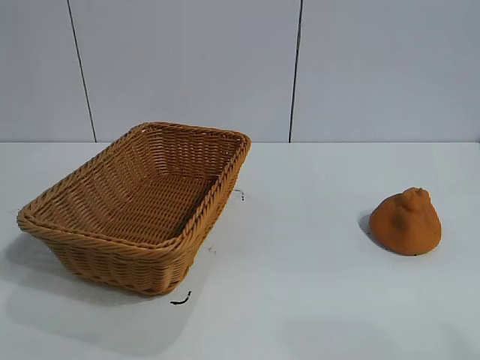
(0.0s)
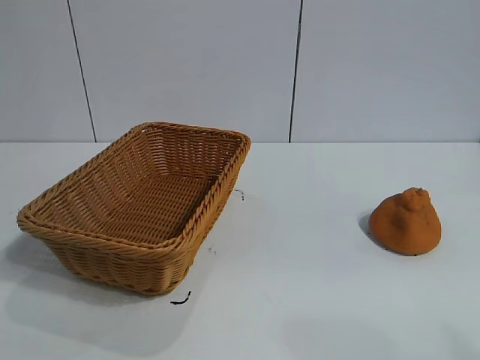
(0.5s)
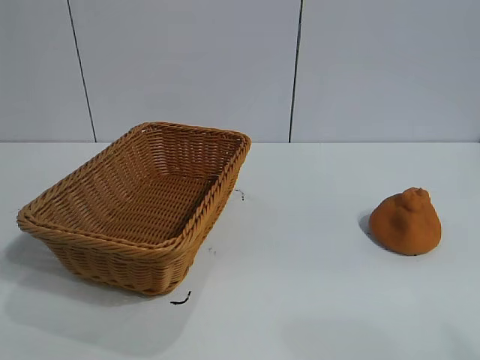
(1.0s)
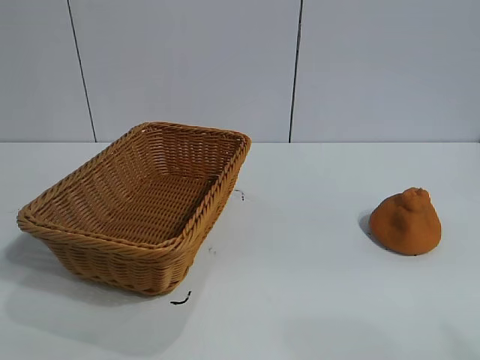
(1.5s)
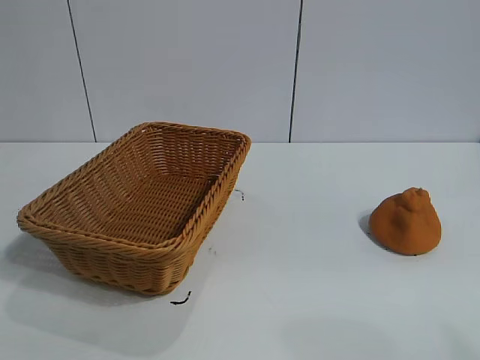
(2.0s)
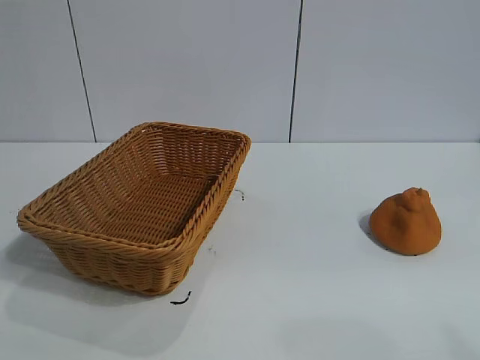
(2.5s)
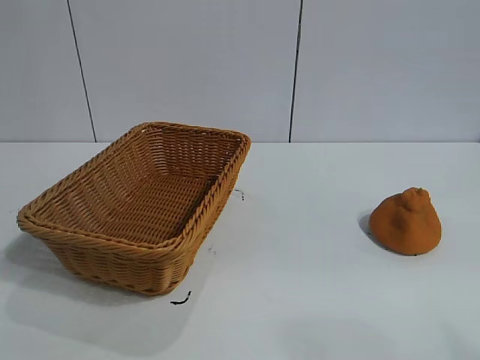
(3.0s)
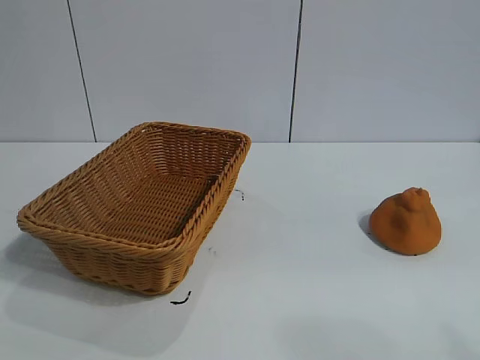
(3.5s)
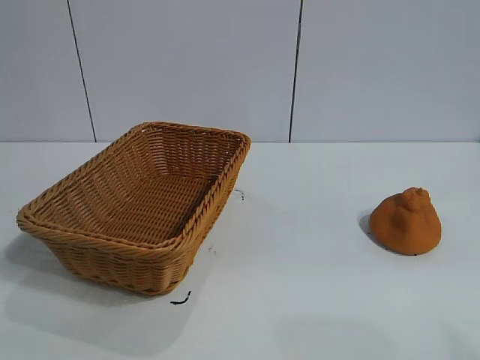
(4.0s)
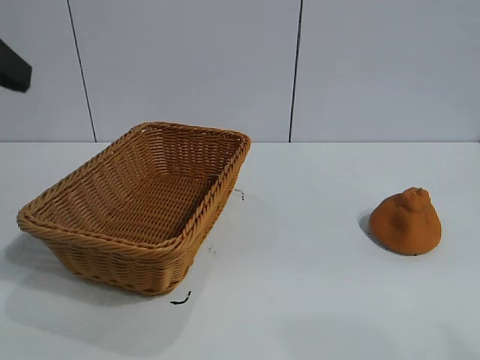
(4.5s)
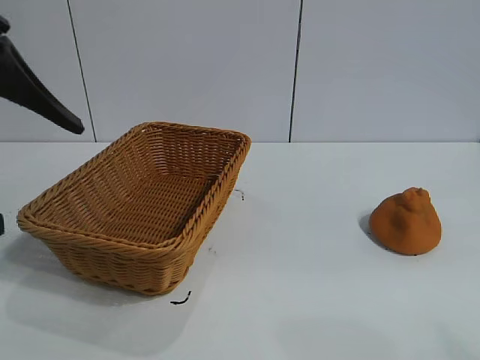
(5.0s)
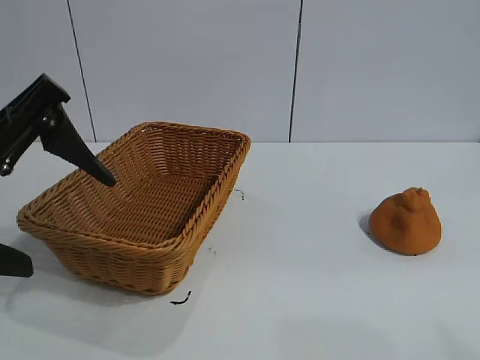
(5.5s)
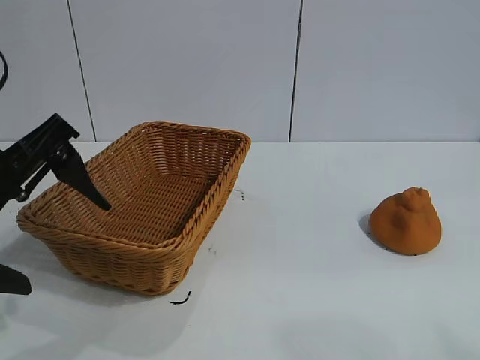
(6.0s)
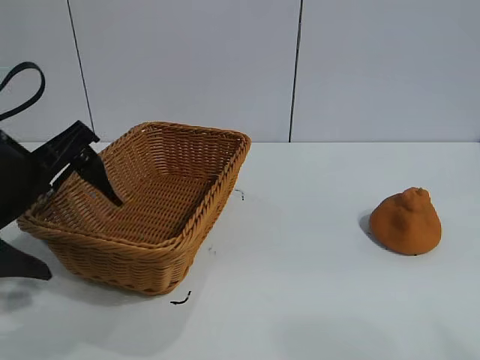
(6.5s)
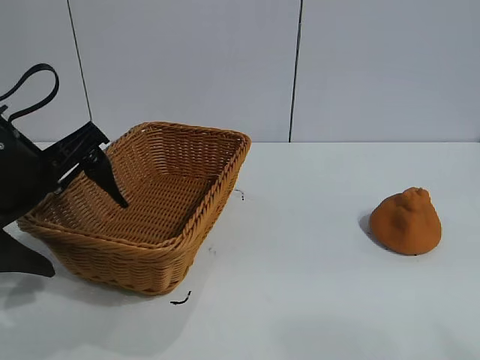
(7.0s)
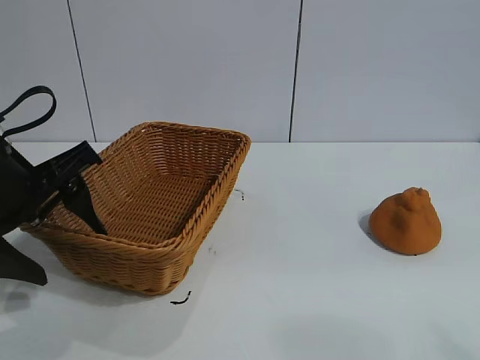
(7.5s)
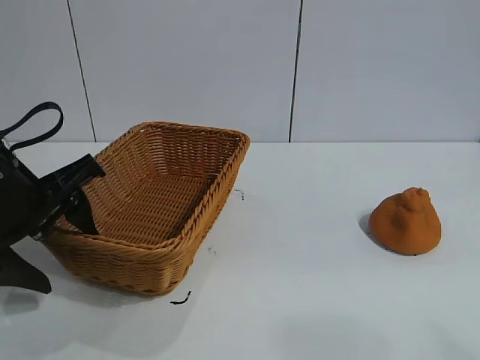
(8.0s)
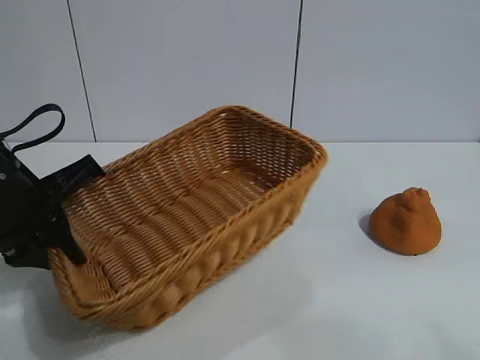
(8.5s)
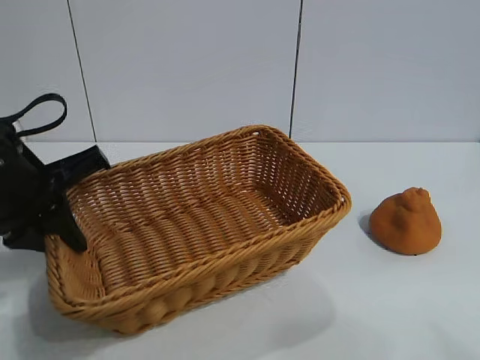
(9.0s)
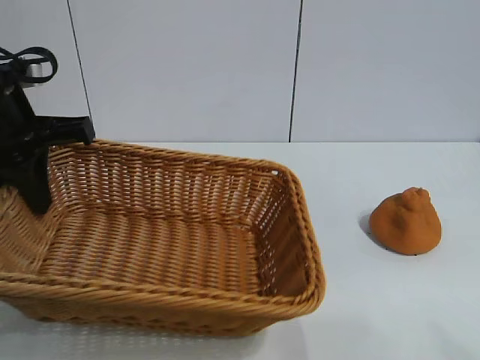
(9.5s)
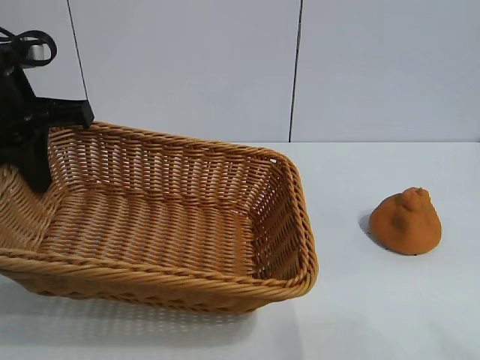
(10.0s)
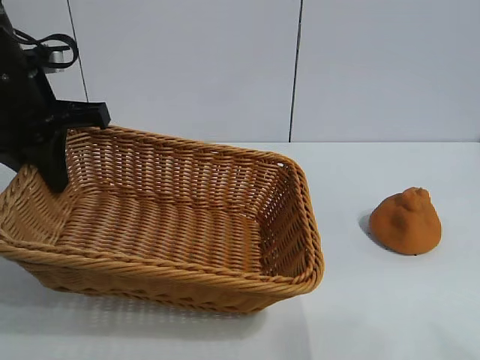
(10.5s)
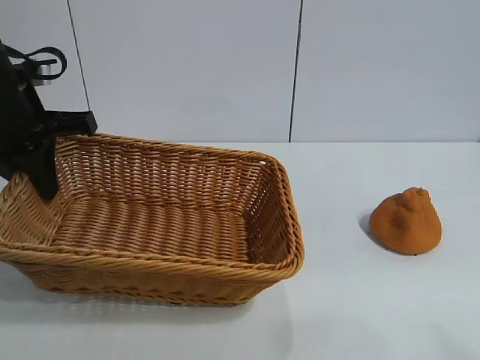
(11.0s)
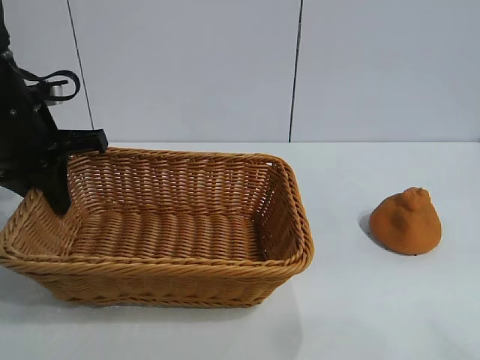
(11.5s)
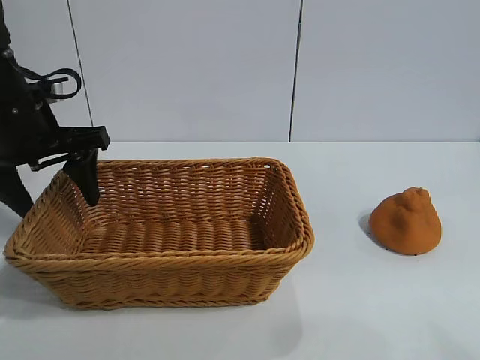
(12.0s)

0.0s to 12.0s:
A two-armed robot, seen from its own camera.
Task of the whole recording: pick up the orange and put it into the basket.
Step, 2.0s to 8.0s: Grasp the basket with left gripper.

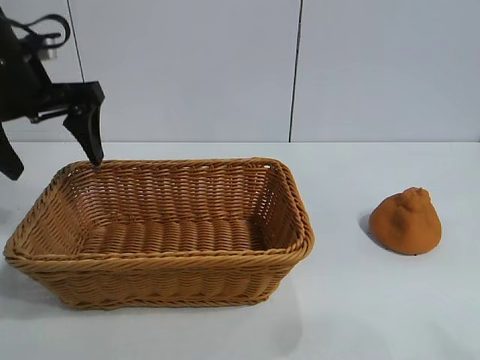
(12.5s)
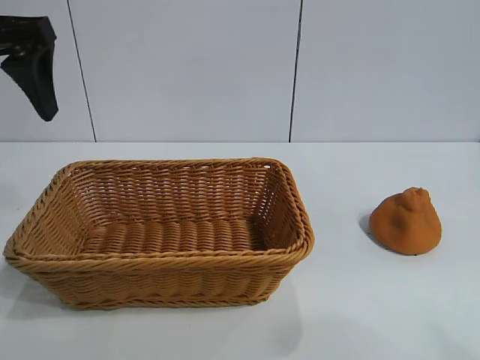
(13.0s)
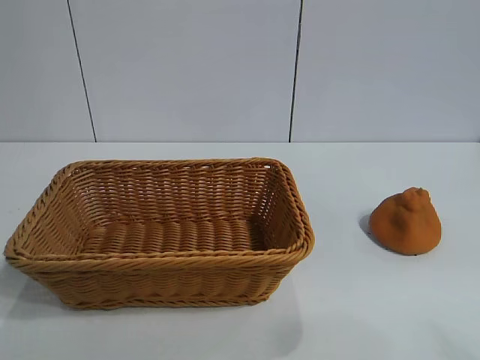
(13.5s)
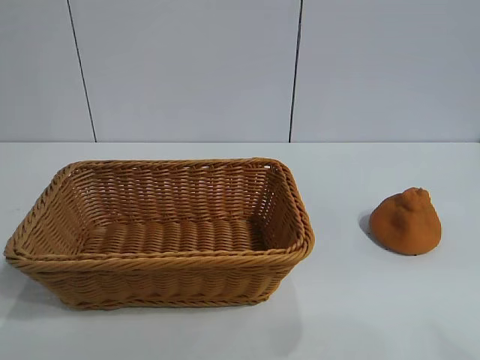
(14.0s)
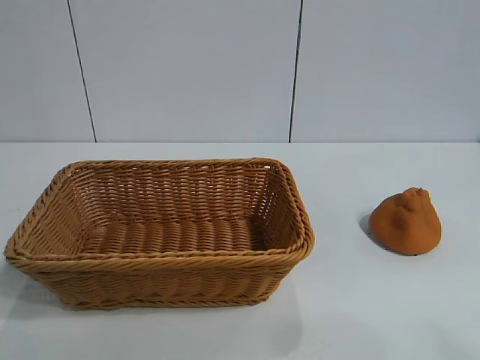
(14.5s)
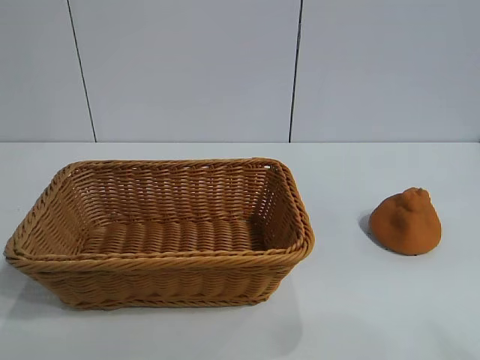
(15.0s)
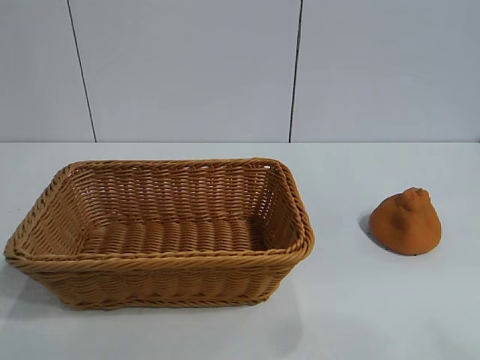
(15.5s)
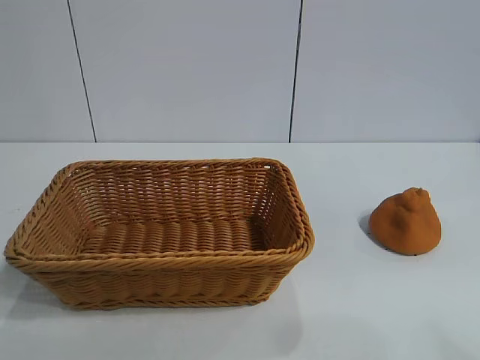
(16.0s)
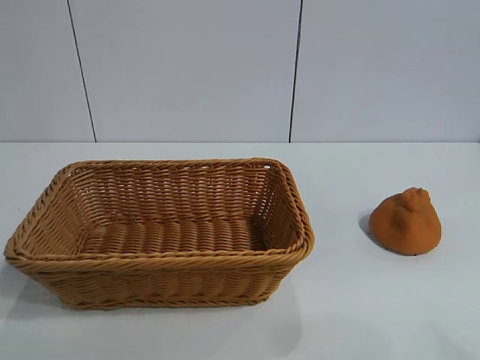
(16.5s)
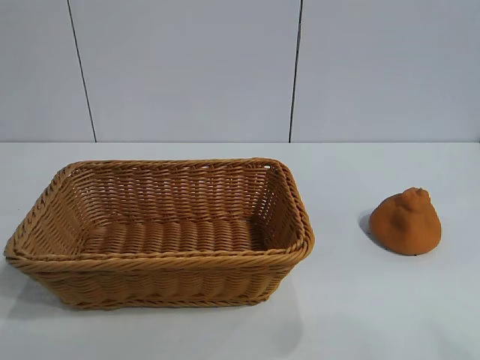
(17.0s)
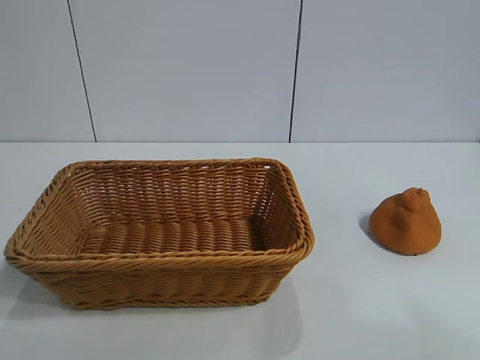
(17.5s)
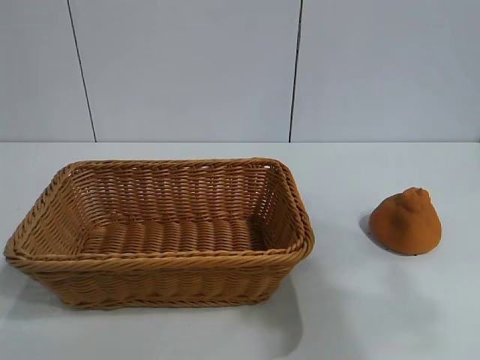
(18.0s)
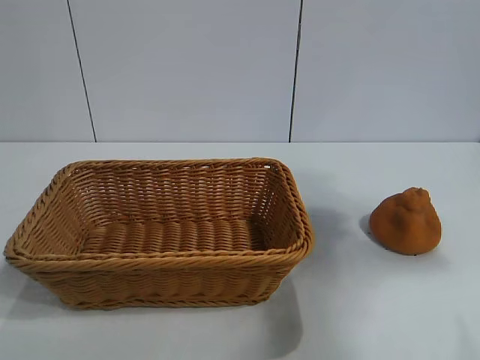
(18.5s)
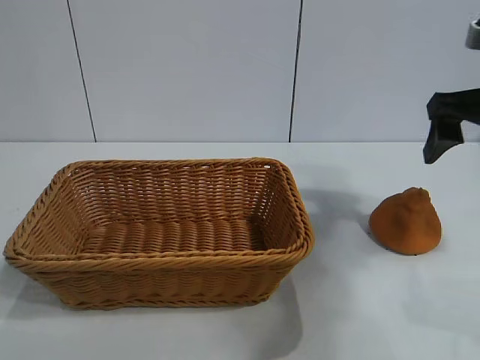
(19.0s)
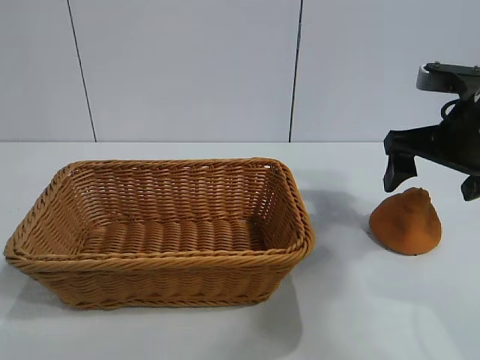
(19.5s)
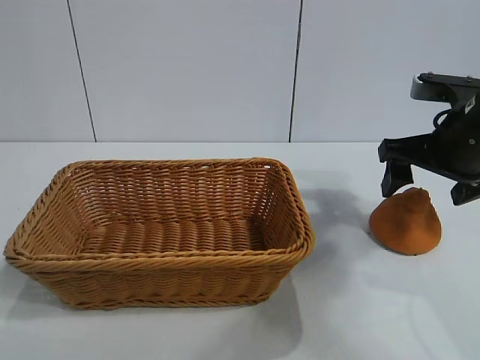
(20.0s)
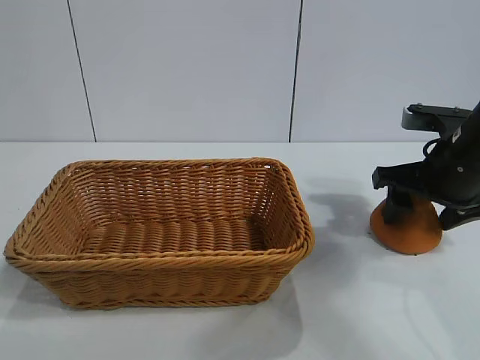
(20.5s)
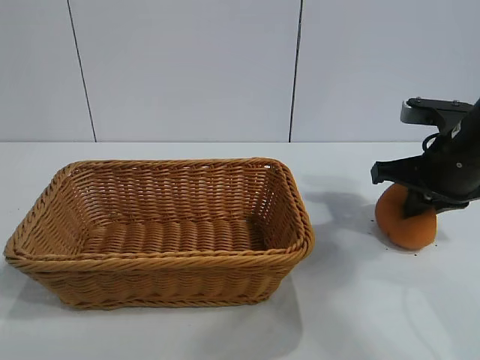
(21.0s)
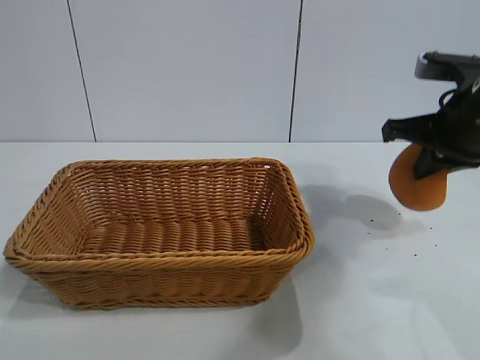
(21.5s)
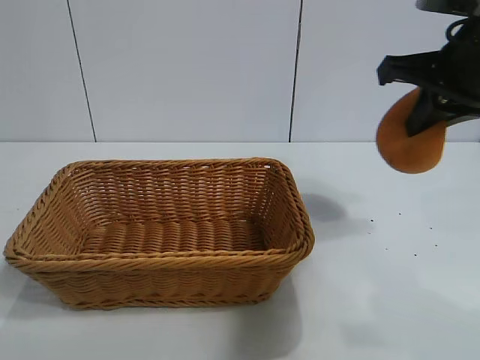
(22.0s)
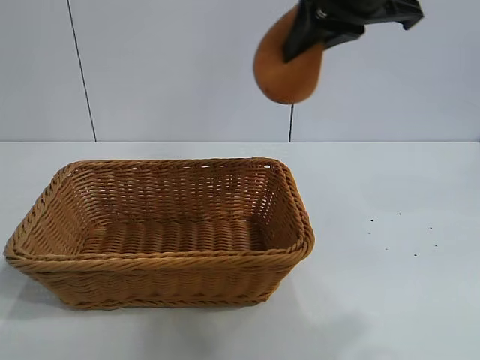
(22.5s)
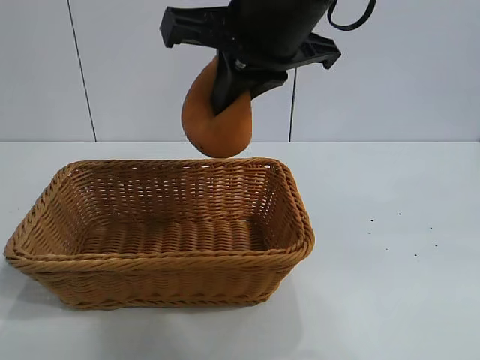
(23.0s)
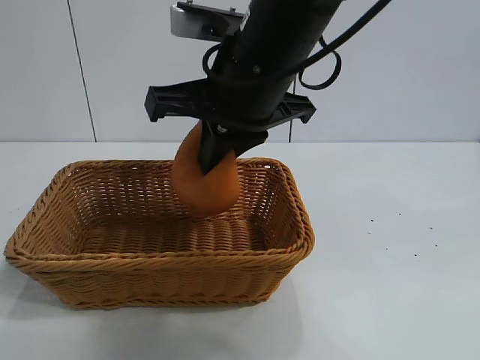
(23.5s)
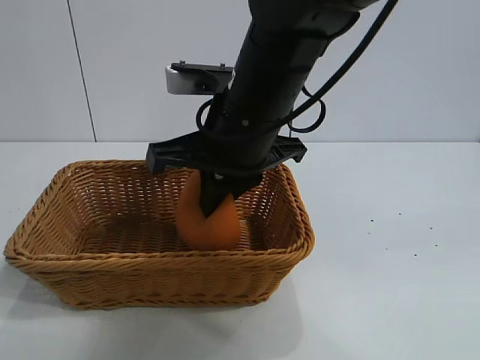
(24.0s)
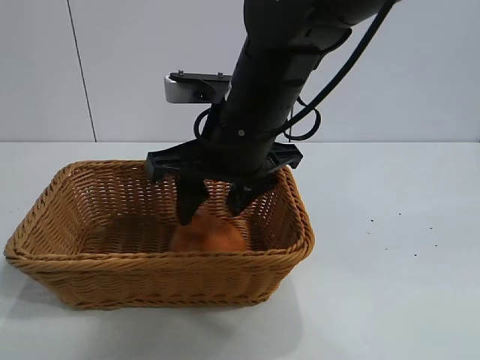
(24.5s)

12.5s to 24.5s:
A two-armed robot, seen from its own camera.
Task of the whole recording: pick up the orange and put it into the basket.
Step, 12.5s to 21.0s: Grasp the orange with right gripper.

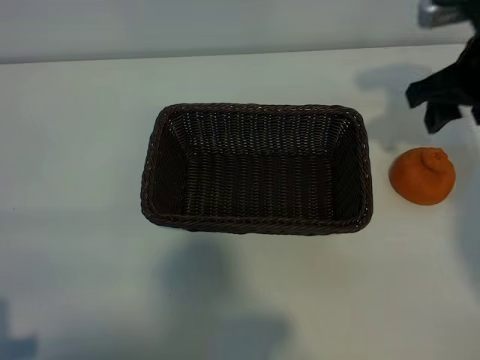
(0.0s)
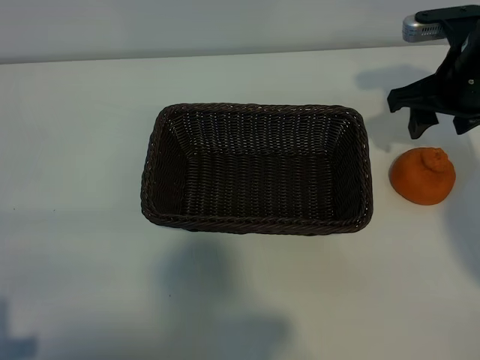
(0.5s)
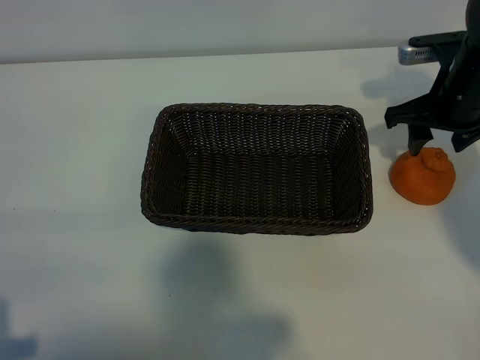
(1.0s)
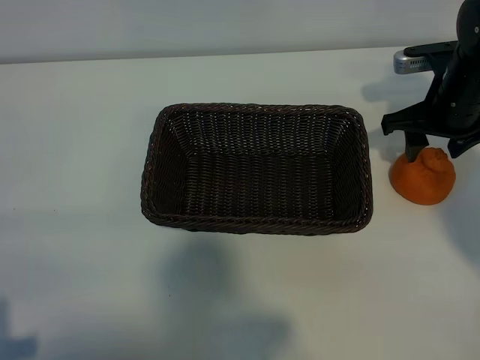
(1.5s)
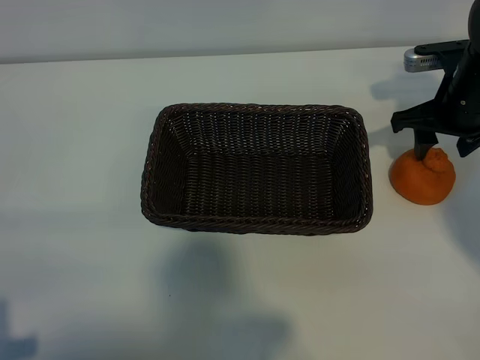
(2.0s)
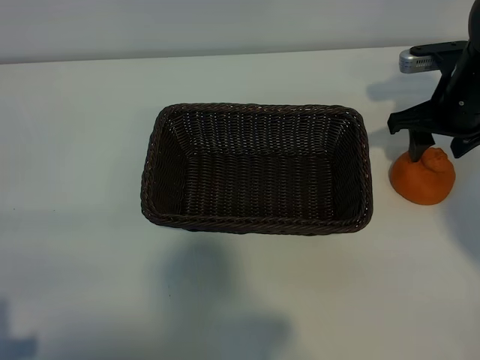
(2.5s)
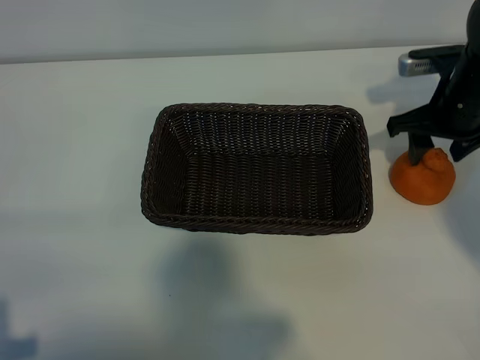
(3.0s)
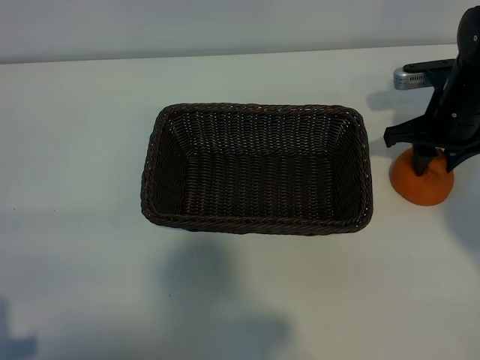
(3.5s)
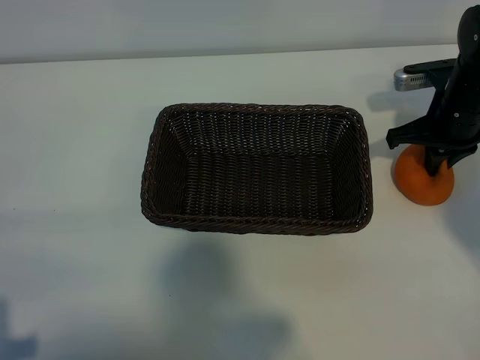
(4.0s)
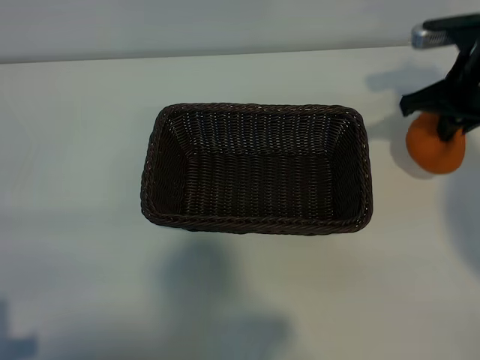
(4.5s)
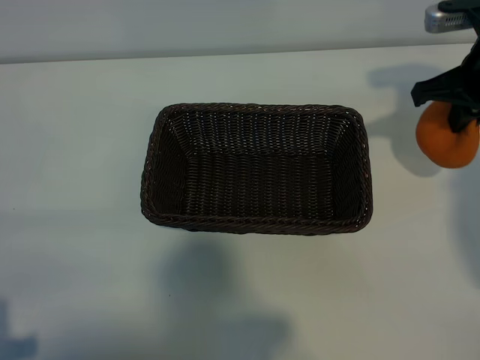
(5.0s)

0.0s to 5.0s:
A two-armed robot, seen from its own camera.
Task of the whole recording: pick up the orange and put it into the basket.
Step, 0.0s to 3.5s: Grasp the orange with right gripper.
